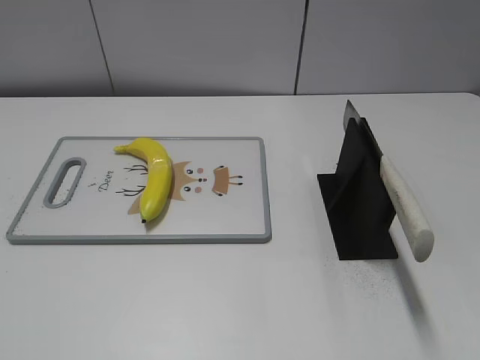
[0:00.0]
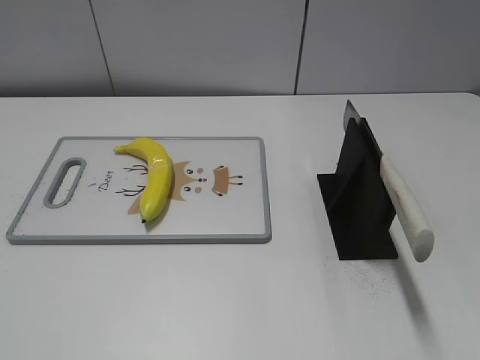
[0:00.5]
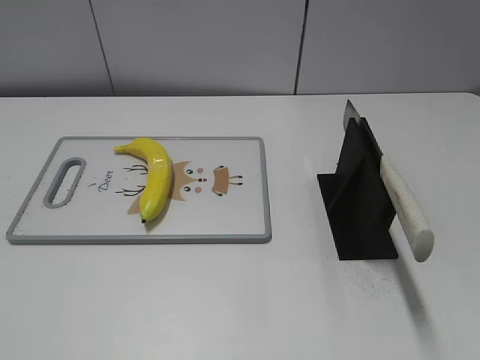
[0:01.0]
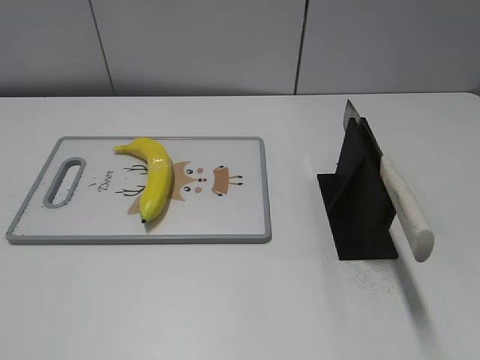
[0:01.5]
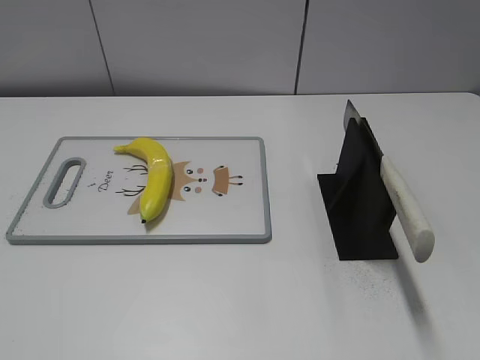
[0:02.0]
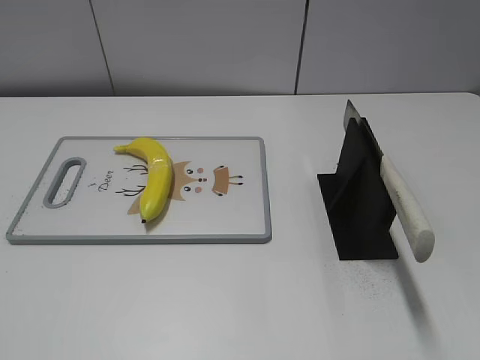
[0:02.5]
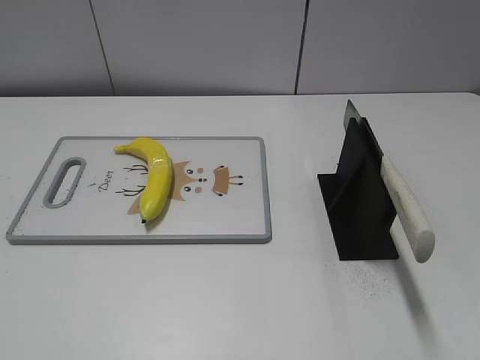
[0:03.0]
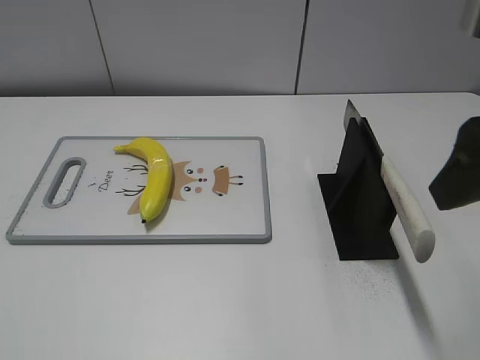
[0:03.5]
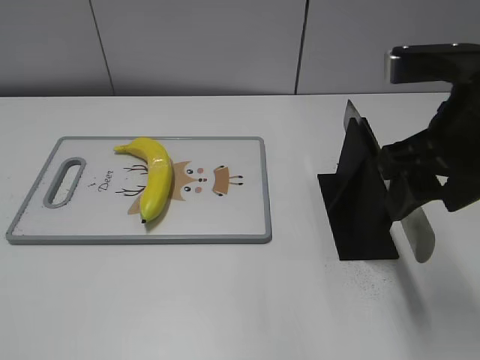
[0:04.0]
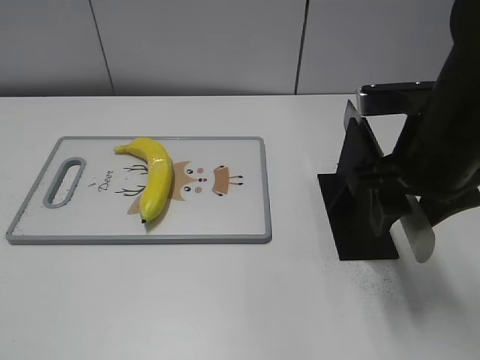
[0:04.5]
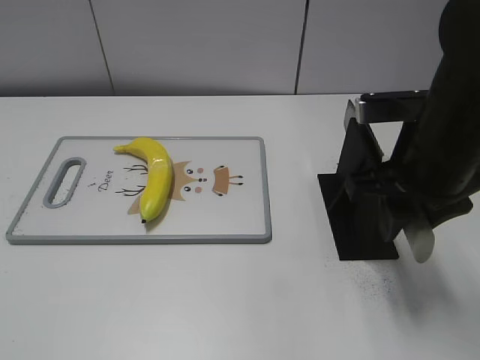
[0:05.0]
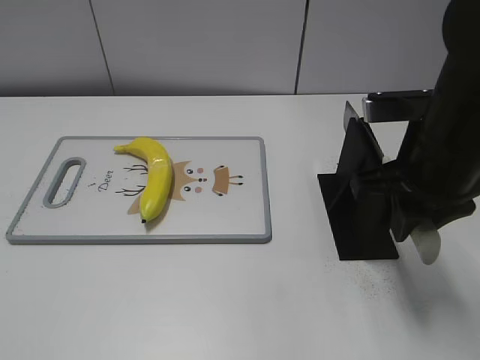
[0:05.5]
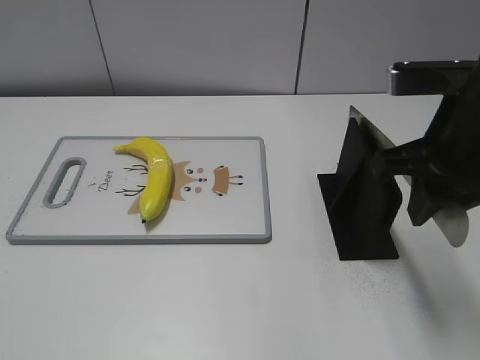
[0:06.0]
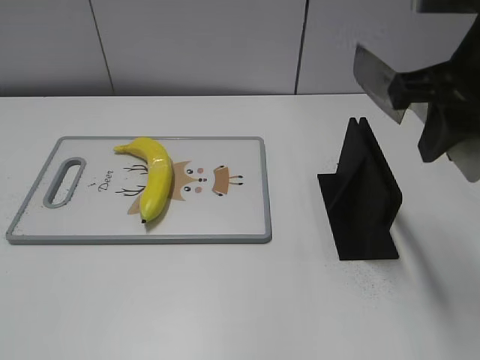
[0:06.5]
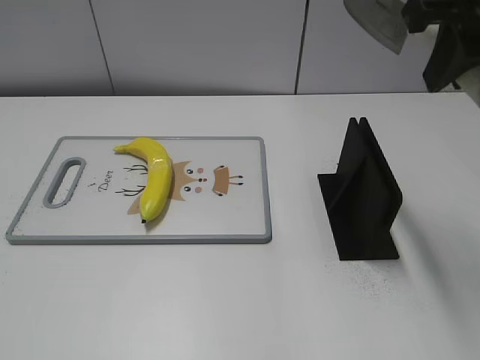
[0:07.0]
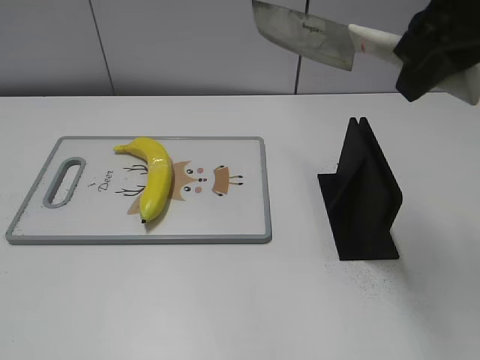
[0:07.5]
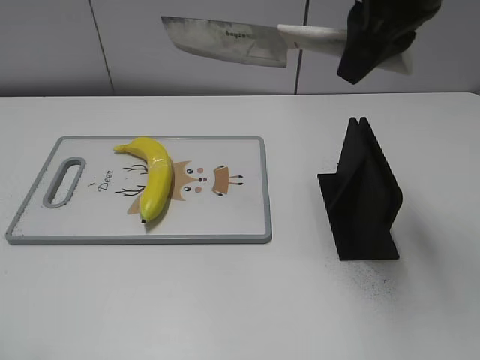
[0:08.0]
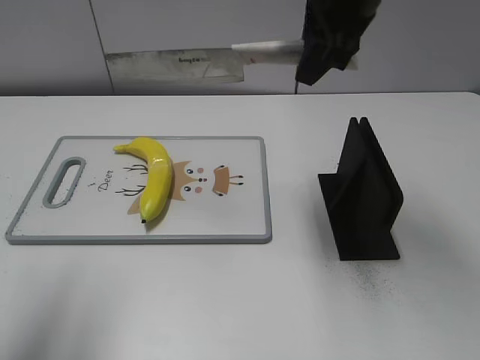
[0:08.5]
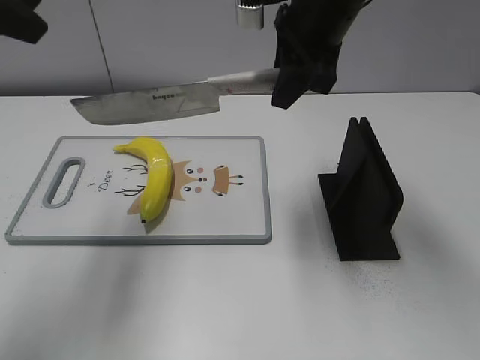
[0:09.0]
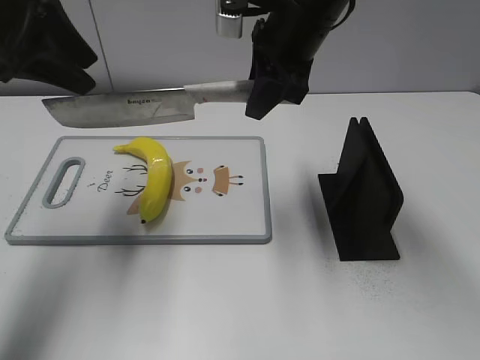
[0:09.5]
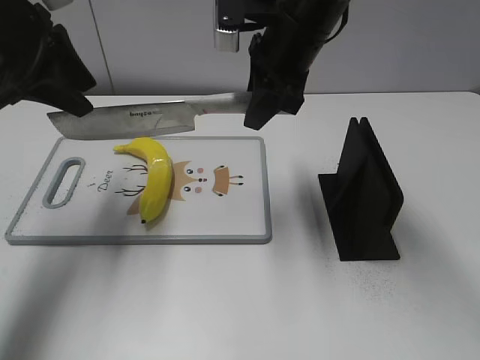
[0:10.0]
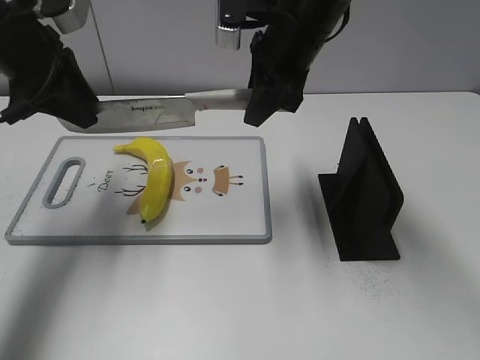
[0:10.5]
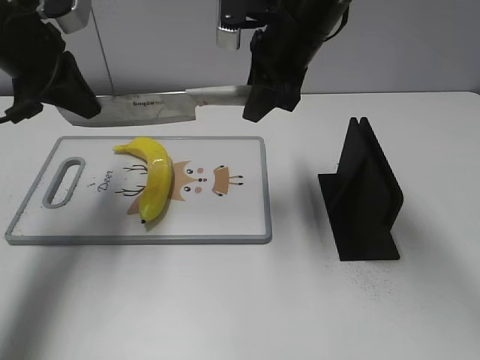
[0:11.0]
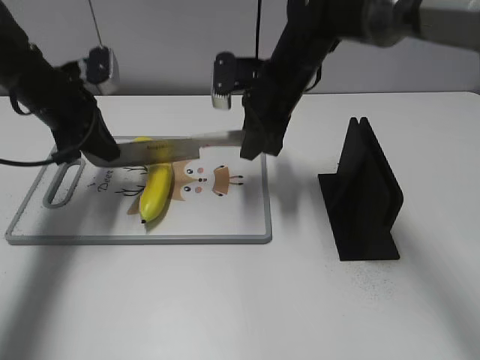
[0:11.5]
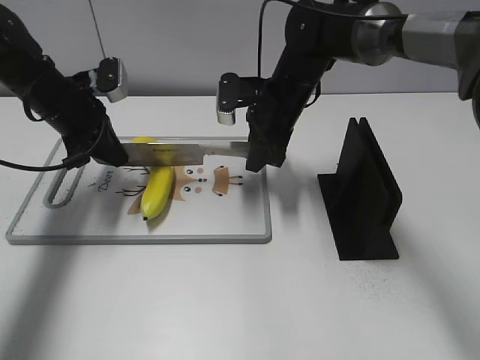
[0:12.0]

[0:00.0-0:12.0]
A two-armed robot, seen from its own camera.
Task of the whole recording: cut plastic banana.
Step, 0:00.0 to 0:06.5: Grab the knife handle with your right hand.
0:02.0 to 0:04.0: The right gripper travels forward and to the left by some 25 cm.
0:04.0 to 0:06.0: The right gripper closes.
0:06.0 to 0:08.0: The right gripper heads upward, forward and to the left, covering approximately 15 cm. Meanwhile the left gripper is displaced forward and upward by roughly 10 cm.
0:08.0 to 0:10.0: The right gripper heads downward, forward and to the left, covering some 15 cm, while the left gripper shifts about 30 cm forward.
0:10.0 to 0:12.0: The right gripper moves downward, roughly 10 cm. The left gripper is displaced downward and forward by approximately 15 cm, and closes up.

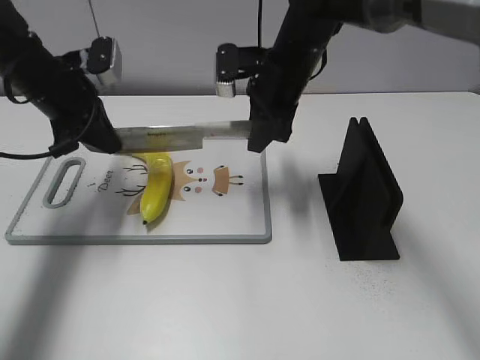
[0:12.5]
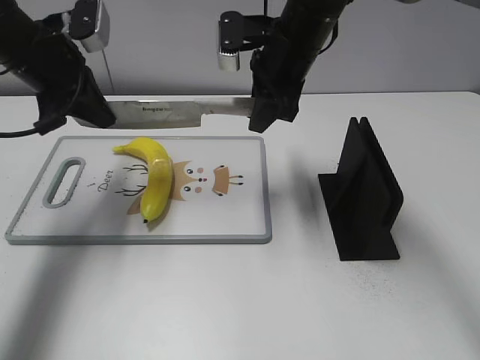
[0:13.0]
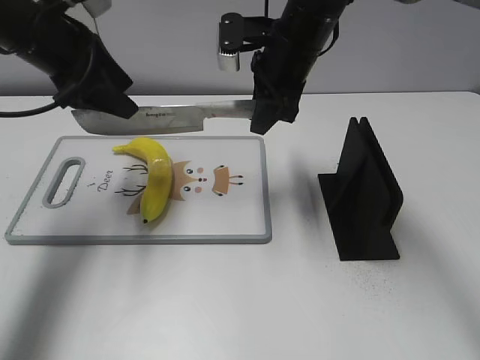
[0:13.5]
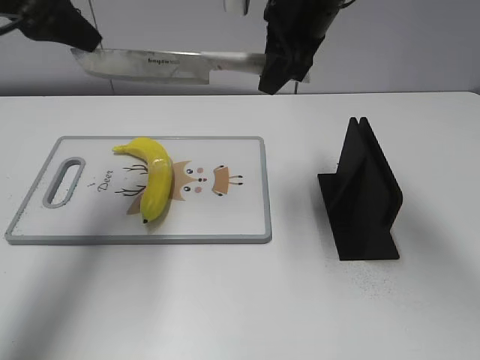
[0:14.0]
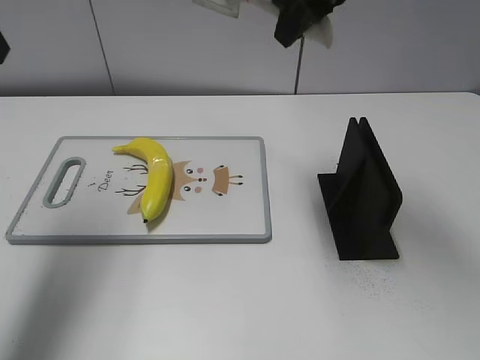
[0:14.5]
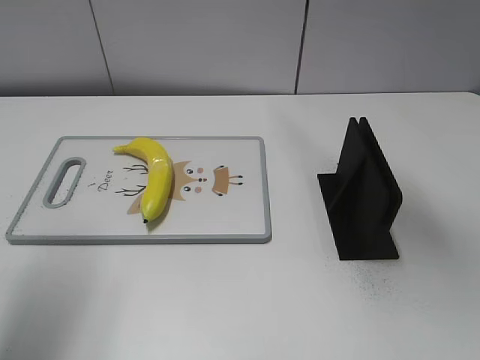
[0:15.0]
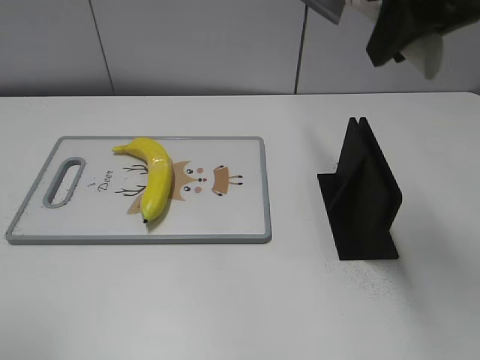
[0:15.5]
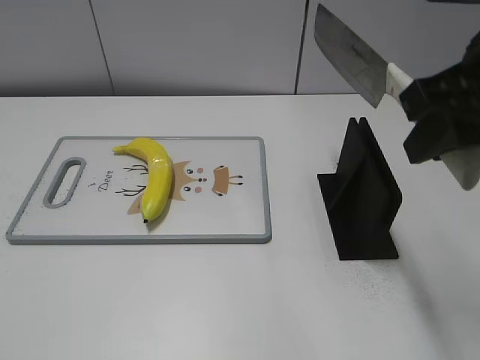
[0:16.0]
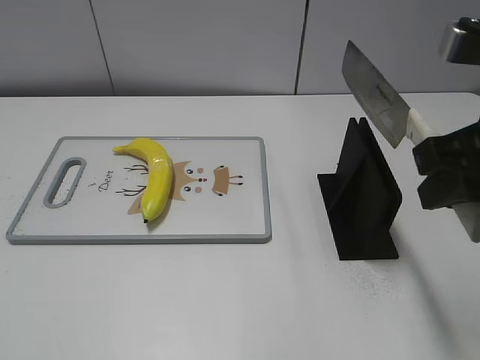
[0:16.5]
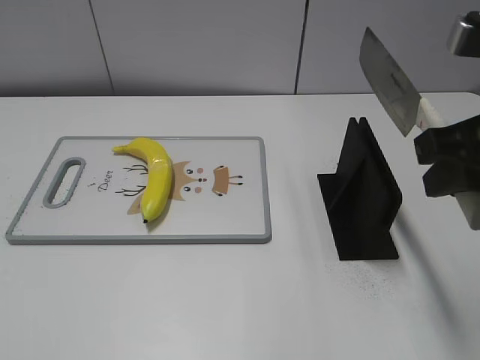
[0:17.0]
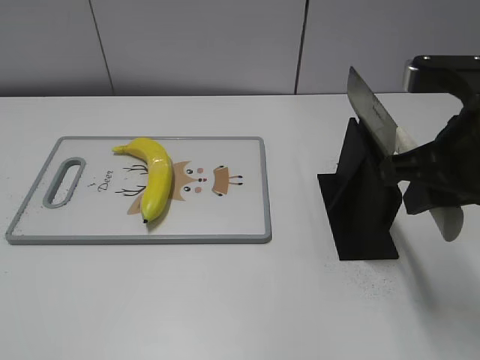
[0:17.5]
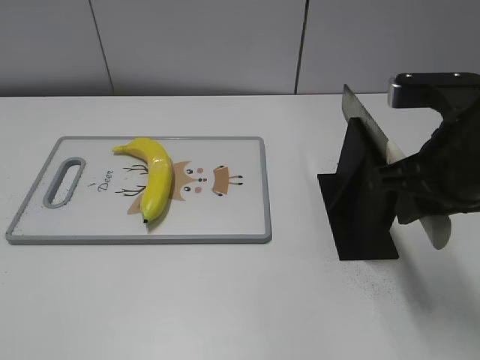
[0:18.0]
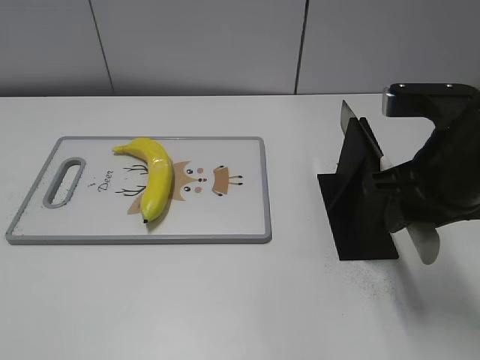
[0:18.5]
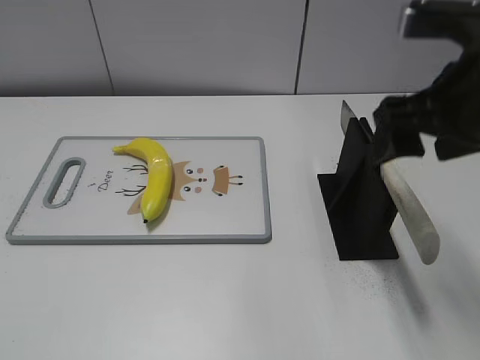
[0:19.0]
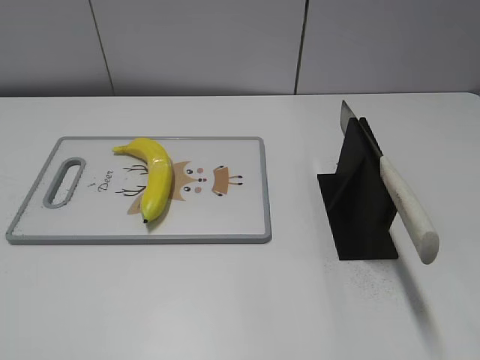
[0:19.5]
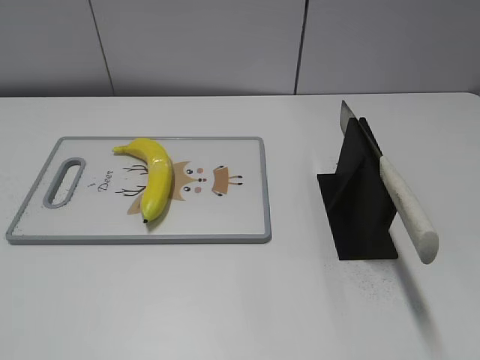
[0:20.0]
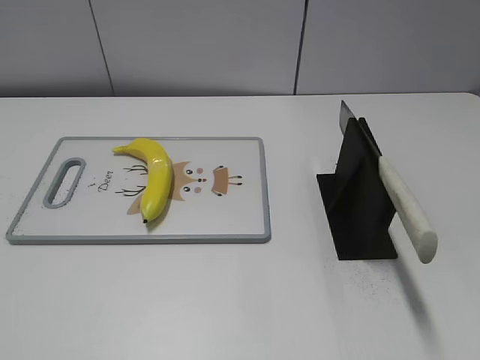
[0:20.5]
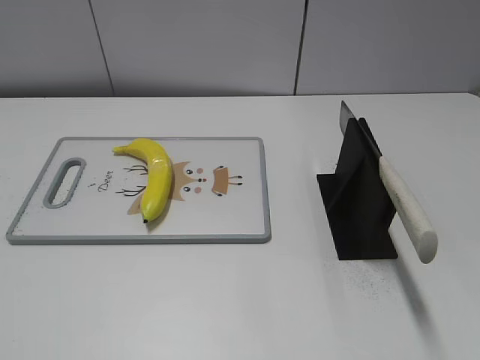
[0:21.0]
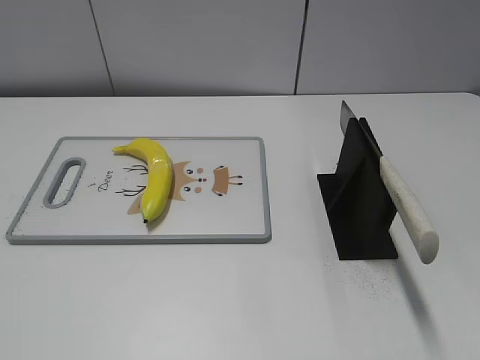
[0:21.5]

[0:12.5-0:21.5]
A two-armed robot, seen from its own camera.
Task of the whole recording: cut plastic banana.
Step, 0:14.0 to 0:15.0: Cut the banana with your left hand.
Step, 0:15.5 to 0:16.5: Secure the blade with your left hand.
Step, 0:17.0 to 0:21.5: Place the knife on the storage rack with your right hand.
0:12.5 to 0:14.5: The right gripper is displaced upward by some 15 cm; the left gripper heads upward and backward, covering roughly 20 cm, and opens up.
0:14.5 to 0:17.0: The right gripper heads backward and to the right, covering roughly 20 cm. The left gripper goes approximately 30 cm backward.
0:17.0 to 0:19.5: The right gripper shifts roughly 10 cm upward and backward, and opens.

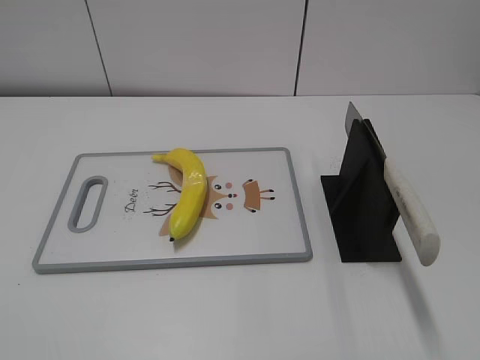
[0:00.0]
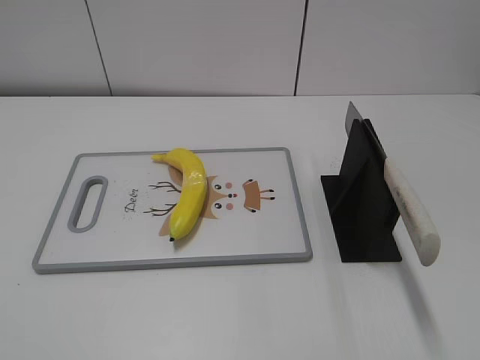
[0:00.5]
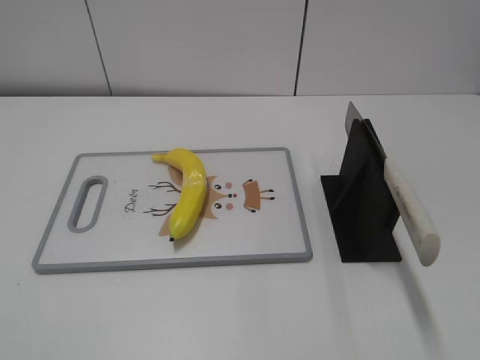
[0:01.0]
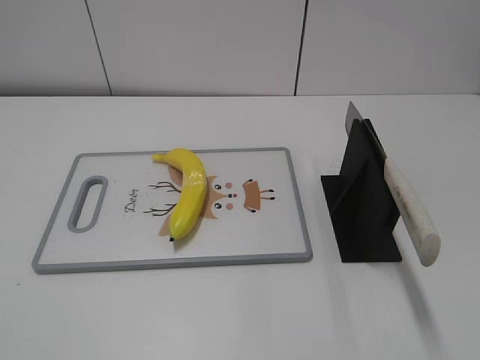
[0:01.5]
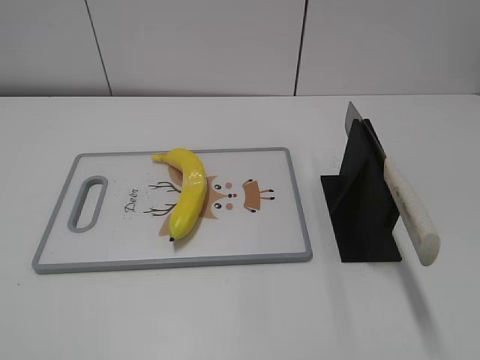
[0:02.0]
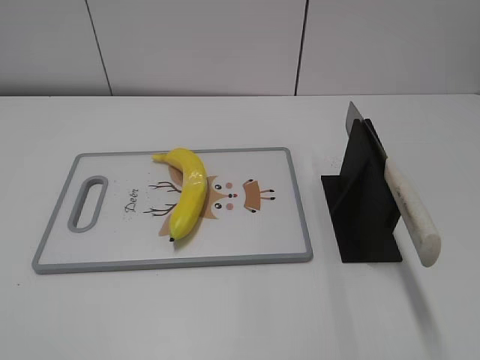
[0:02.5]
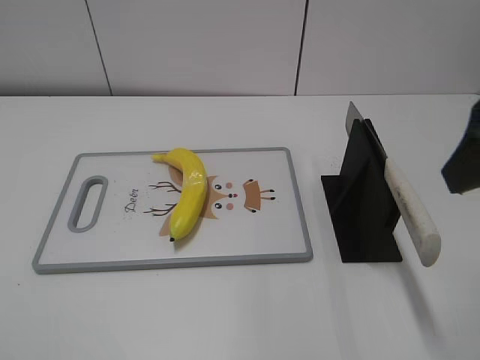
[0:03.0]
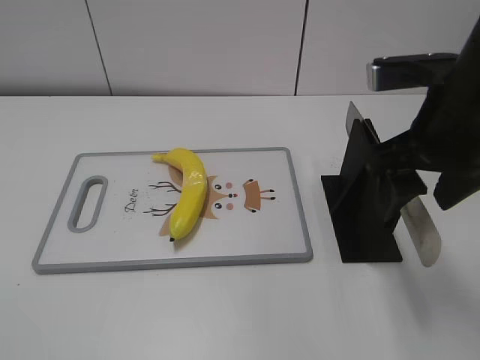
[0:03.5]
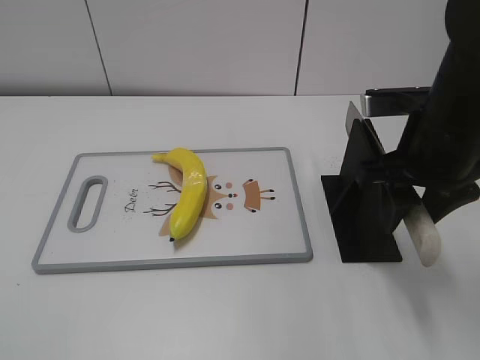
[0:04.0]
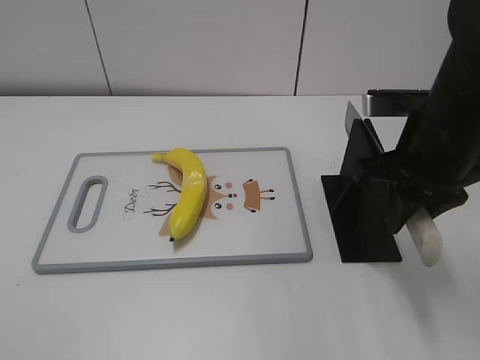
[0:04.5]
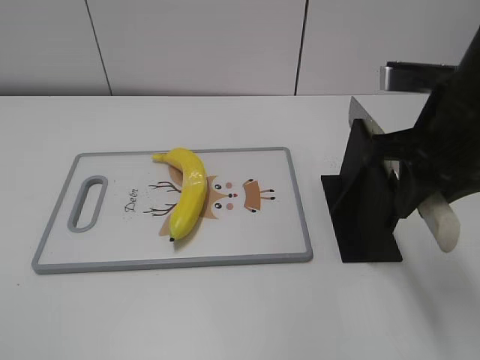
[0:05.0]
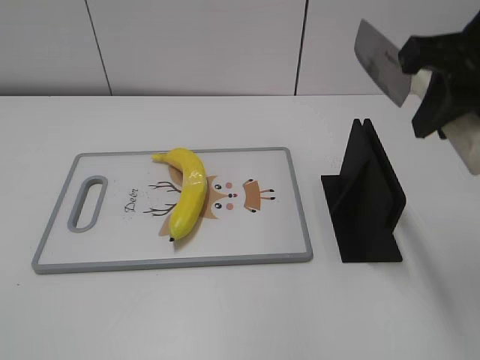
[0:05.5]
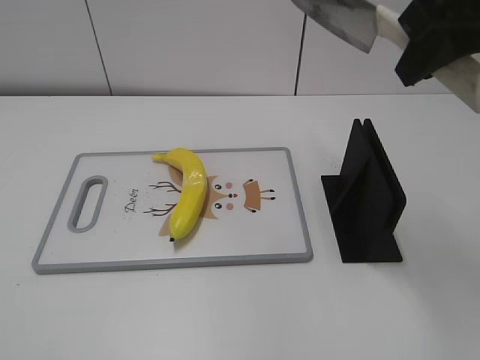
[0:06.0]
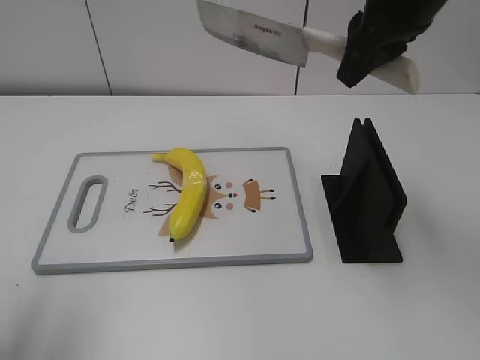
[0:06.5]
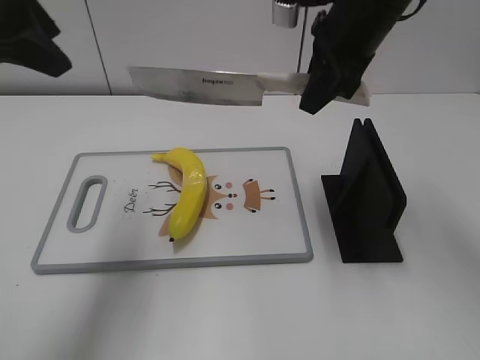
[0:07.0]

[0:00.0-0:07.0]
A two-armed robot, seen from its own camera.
Task of the whole recording: cut plastic banana.
Step, 0:00.0 to 0:05.0: Grab the knife handle with your right hand.
0:02.0 to 0:03.5: The right gripper is displaced forward and to the left by approximately 25 cm.
0:03.5 to 0:05.0: The right gripper closes its fingers.
0:05.0 to 0:07.0: The right gripper shifts approximately 15 cm forward and to the left. The left gripper heads forward, covering roughly 30 cm.
